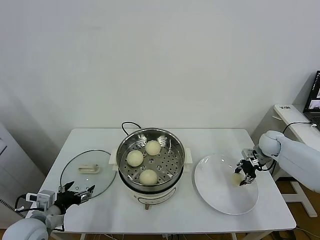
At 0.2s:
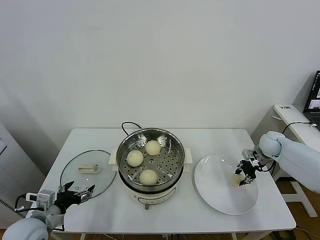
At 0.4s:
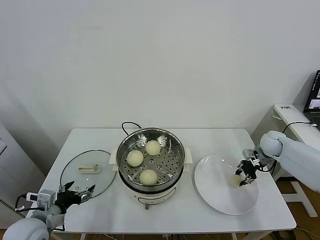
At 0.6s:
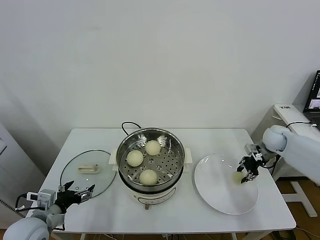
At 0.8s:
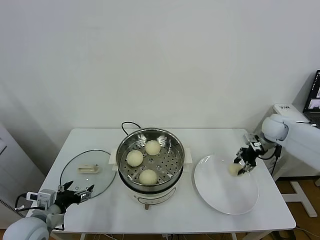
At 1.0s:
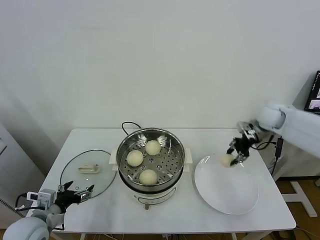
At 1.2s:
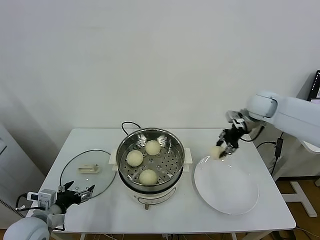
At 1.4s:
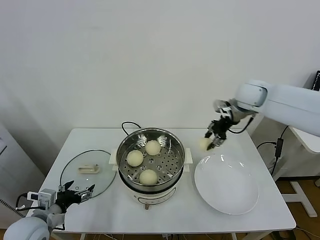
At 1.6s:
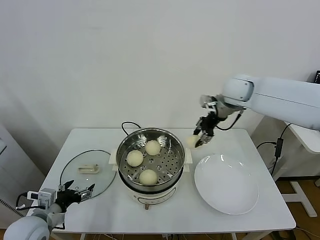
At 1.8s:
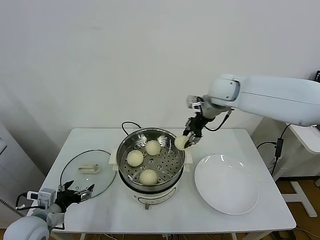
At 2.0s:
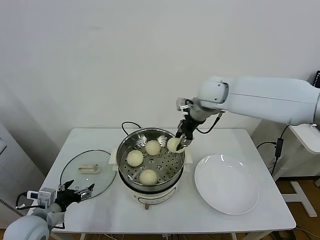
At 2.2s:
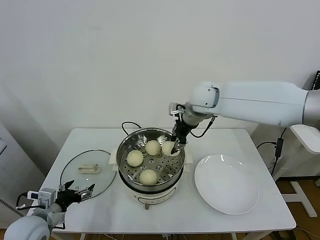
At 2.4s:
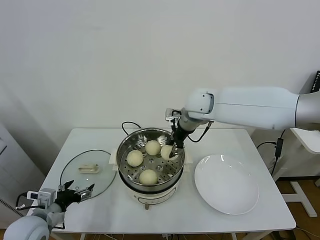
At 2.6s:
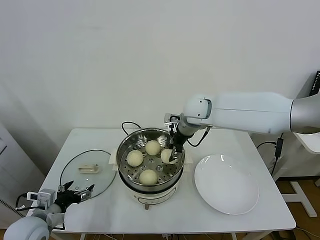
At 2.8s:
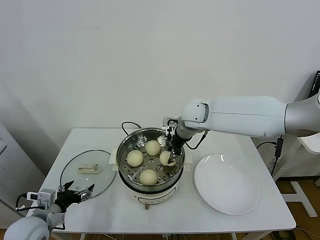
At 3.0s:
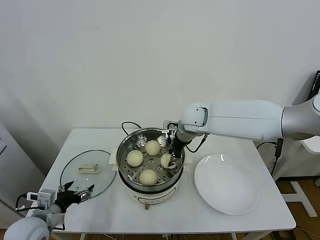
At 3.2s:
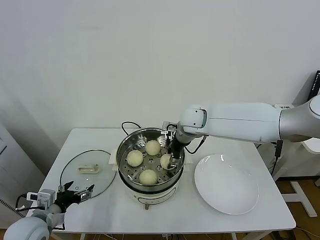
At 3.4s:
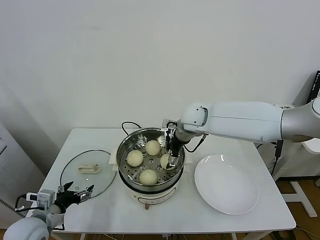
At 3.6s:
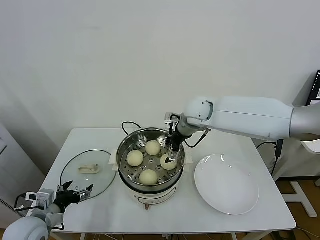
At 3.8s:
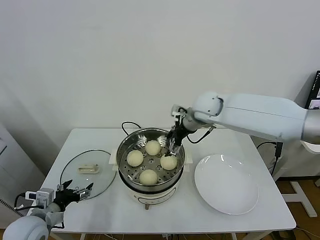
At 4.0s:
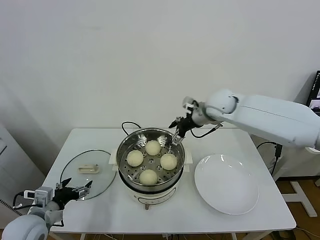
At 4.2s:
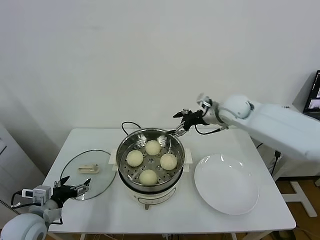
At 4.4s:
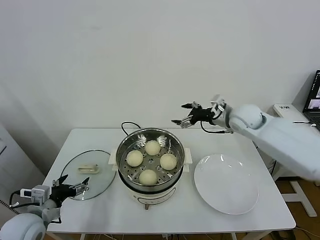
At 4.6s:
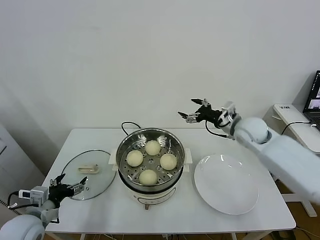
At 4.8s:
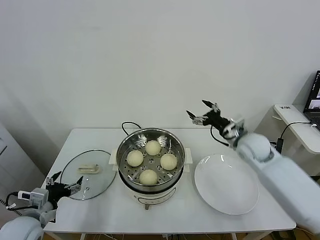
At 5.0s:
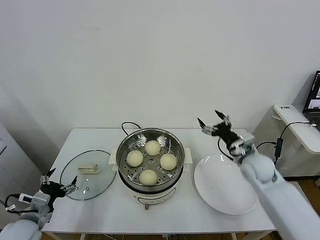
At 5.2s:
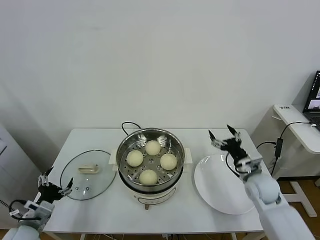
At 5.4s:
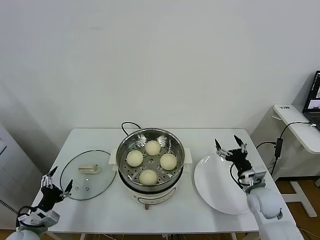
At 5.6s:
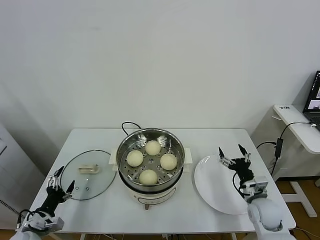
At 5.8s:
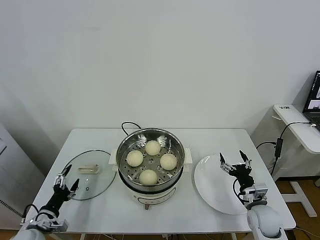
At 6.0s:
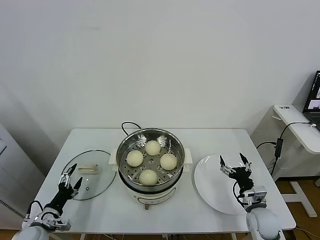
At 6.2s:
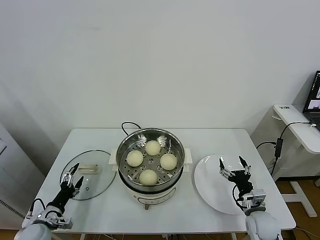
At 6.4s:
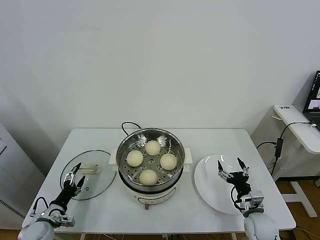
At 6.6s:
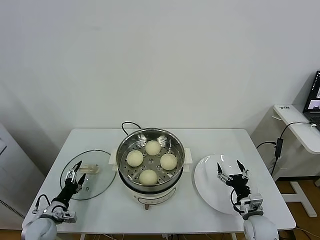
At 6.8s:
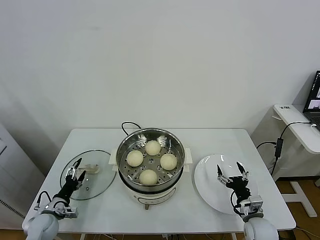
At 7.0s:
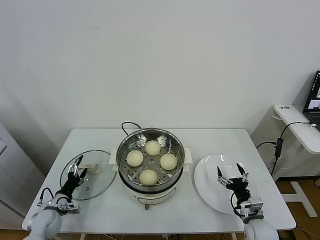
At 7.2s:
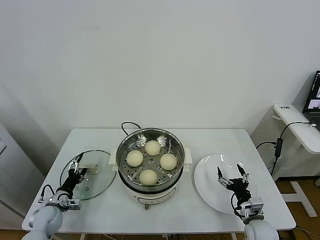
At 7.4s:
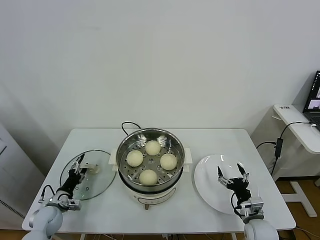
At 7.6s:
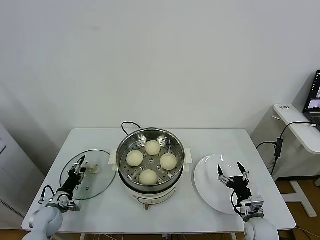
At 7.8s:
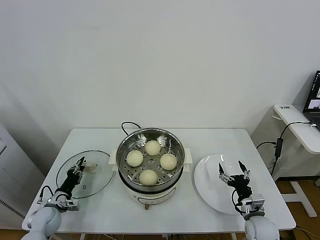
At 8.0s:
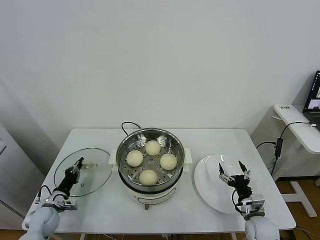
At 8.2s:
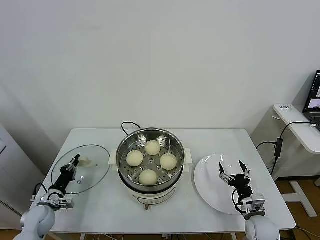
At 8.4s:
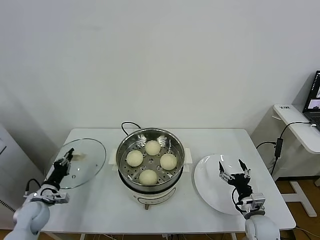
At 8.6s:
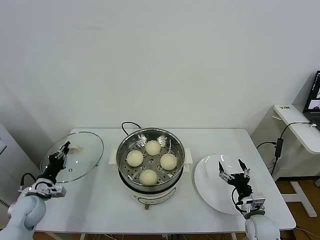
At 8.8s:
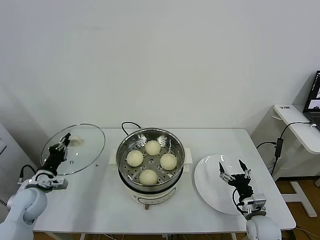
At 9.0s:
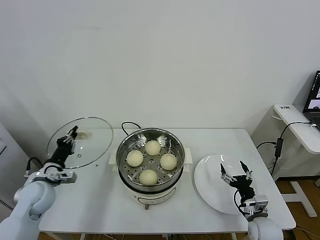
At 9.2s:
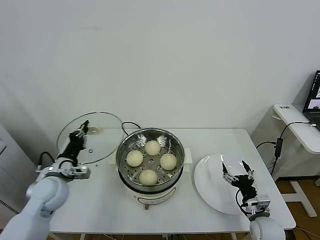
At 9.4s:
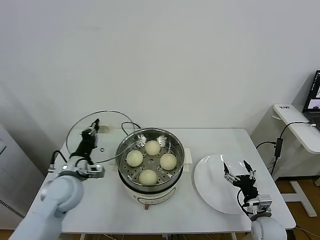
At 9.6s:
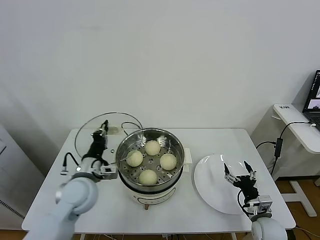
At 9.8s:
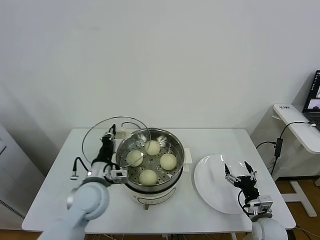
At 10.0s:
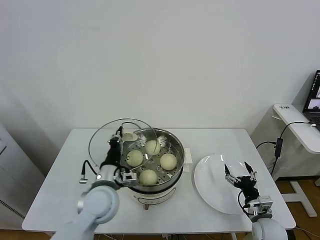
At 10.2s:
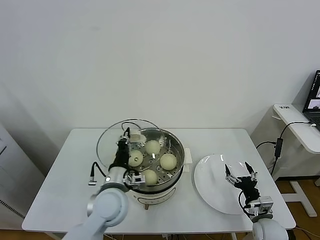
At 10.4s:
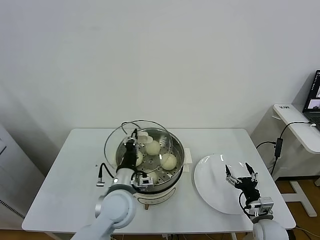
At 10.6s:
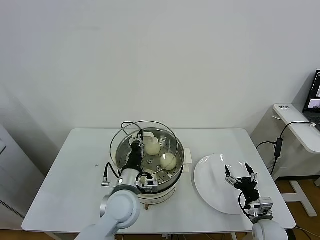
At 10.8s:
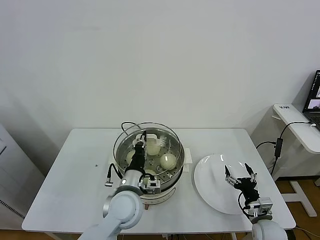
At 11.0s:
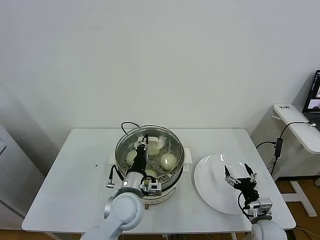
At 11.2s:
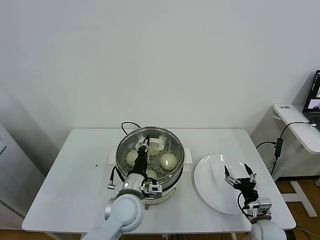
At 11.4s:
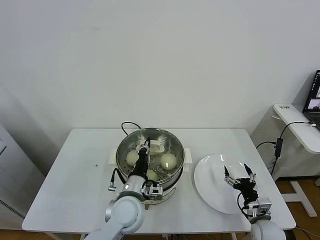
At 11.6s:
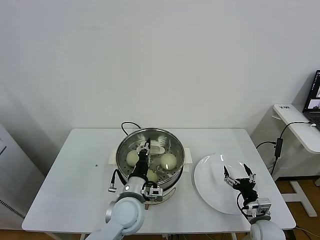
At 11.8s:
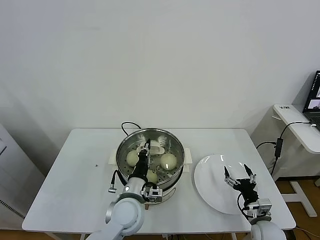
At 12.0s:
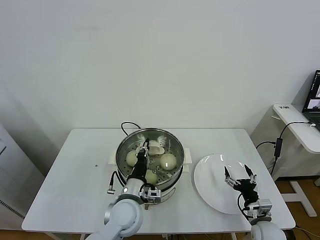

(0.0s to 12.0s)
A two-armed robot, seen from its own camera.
Task of the whole recording: take steamed baozi put them in steamer.
Step, 0.2s - 3.6s: Place the baozi on the steamer with right gripper.
Step, 3.8s - 8.0s: Grasp the pot lid with left gripper.
0.0s - 1.6s: The right gripper goes roughly 30 cm upward and to the left.
1.6s - 3.0s: The right gripper shifts roughly 15 cm to the left and downward.
3.0s - 4.4s: The right gripper travels to the right by approximately 15 cm, and opens its fingers.
4.4s - 6.0s: The right gripper travels downward and backward by some 35 cm. The left gripper goes approximately 15 cm downward.
6.0s - 7.6s: The left gripper goes some 10 cm forward, and closes.
7.6s - 9.0s: The left gripper moves upward, about 15 cm, and closes up.
9.0s - 10.4s: The left gripper travels to the right by approximately 25 cm.
10.4s - 12.0s: The left gripper moves roughly 5 cm.

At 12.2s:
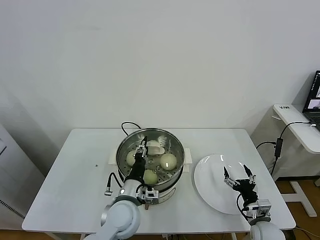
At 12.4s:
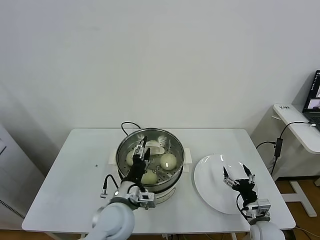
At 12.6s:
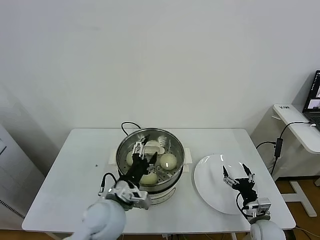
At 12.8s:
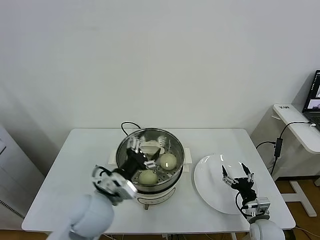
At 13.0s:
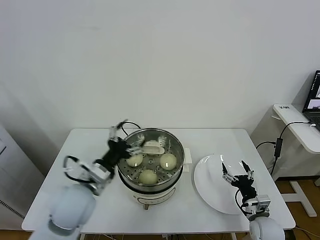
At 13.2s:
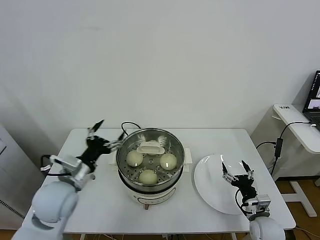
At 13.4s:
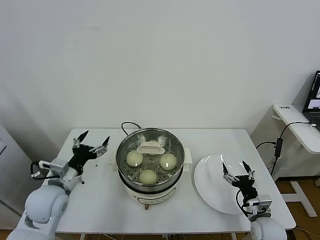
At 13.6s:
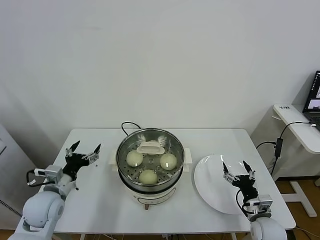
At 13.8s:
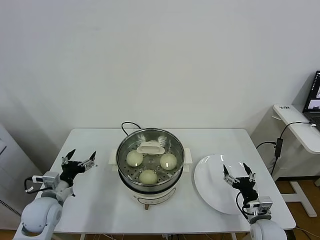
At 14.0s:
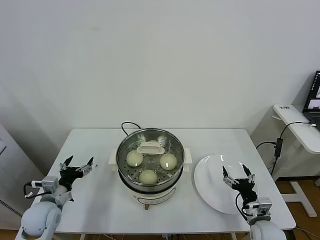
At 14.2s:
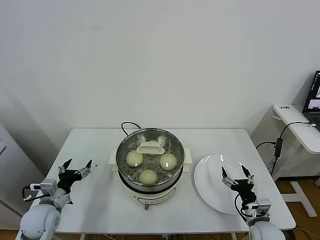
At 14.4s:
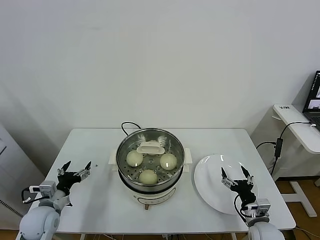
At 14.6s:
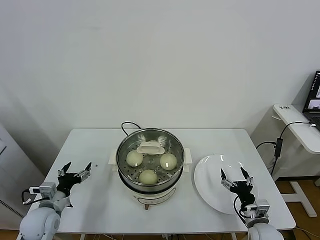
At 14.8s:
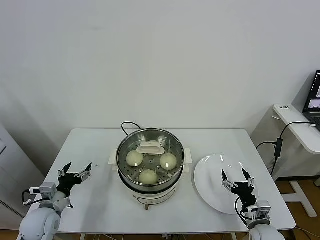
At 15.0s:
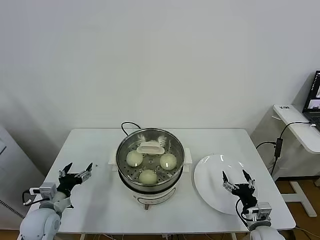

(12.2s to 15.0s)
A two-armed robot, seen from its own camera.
Task of the whole recording: take steamed baozi put them in steamer.
12.2s - 13.6s: The left gripper travels to the left by some 25 cm, and opens.
13.6s - 15.0s: The left gripper shifts some 5 cm downward.

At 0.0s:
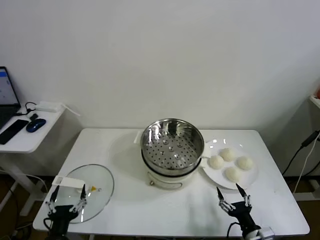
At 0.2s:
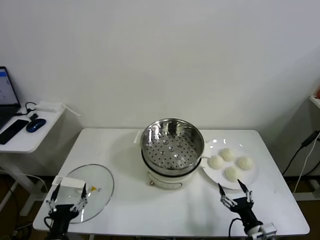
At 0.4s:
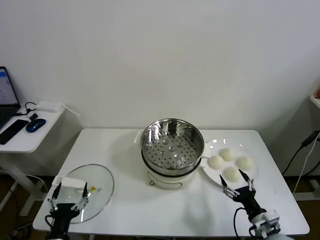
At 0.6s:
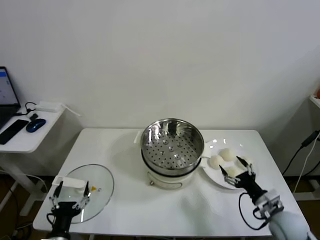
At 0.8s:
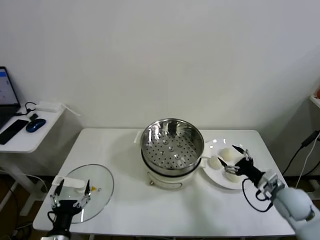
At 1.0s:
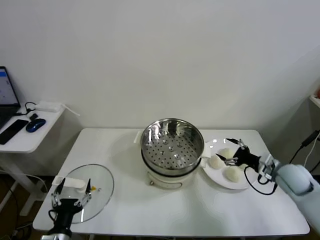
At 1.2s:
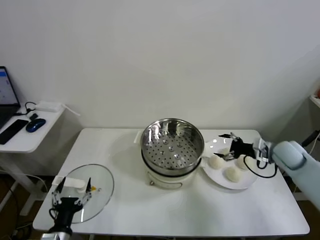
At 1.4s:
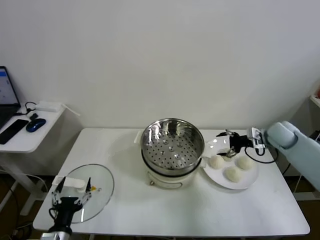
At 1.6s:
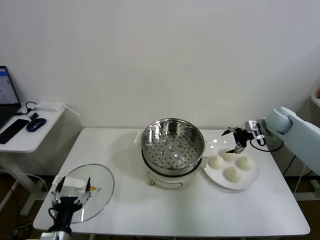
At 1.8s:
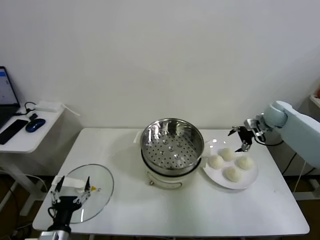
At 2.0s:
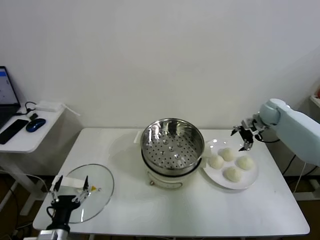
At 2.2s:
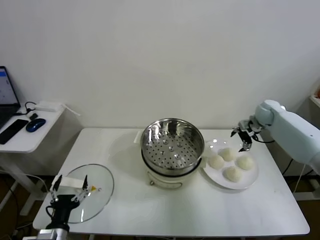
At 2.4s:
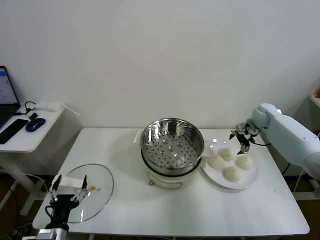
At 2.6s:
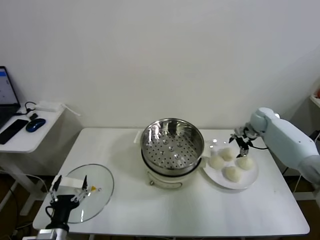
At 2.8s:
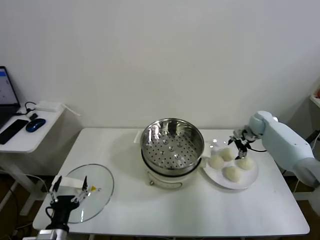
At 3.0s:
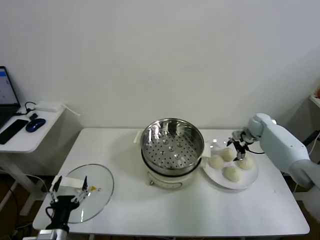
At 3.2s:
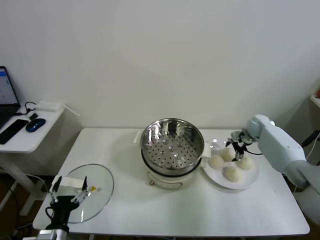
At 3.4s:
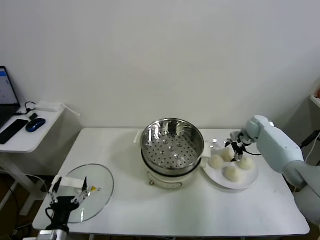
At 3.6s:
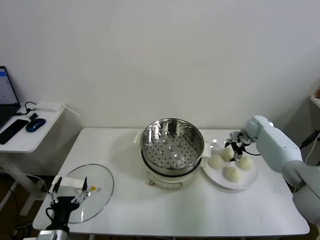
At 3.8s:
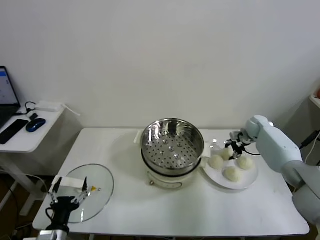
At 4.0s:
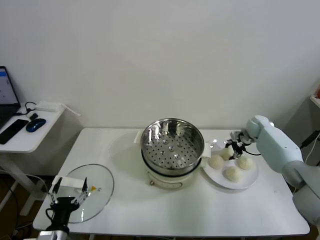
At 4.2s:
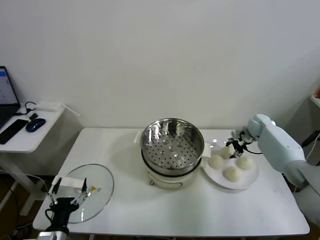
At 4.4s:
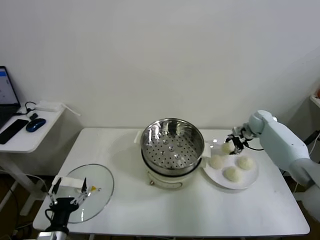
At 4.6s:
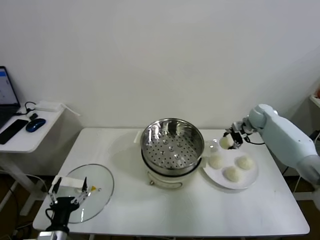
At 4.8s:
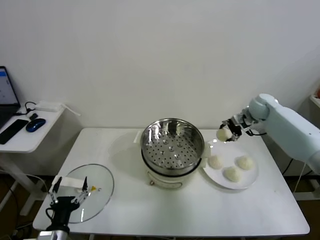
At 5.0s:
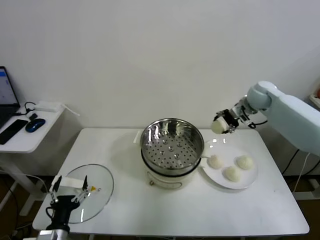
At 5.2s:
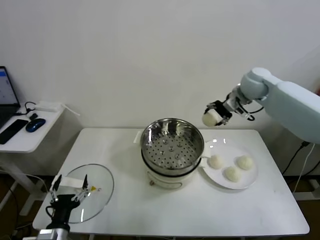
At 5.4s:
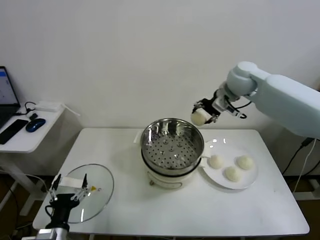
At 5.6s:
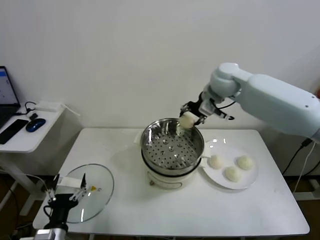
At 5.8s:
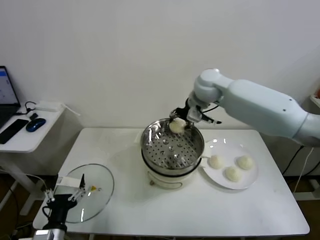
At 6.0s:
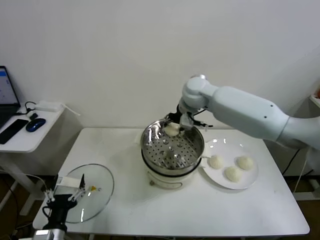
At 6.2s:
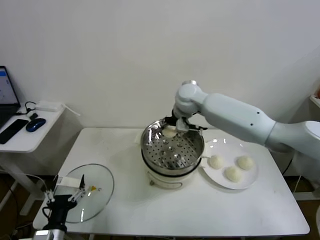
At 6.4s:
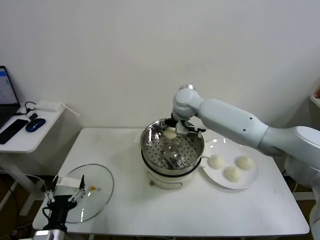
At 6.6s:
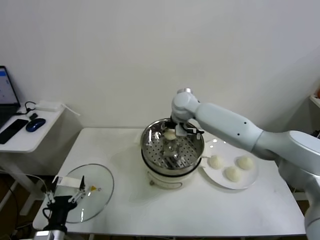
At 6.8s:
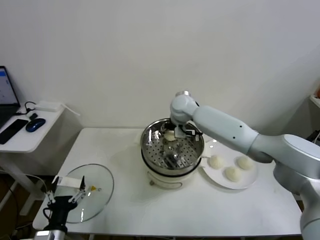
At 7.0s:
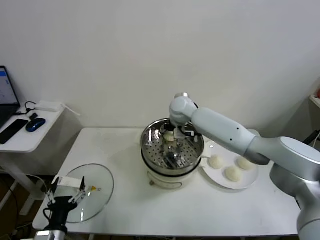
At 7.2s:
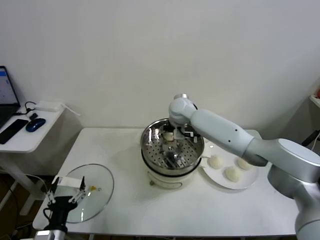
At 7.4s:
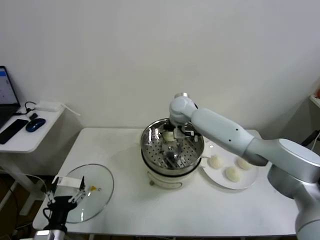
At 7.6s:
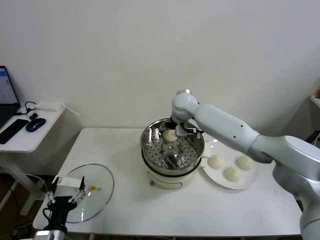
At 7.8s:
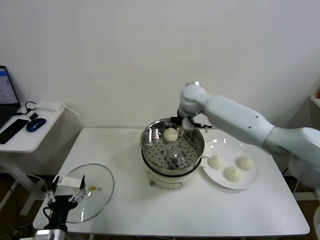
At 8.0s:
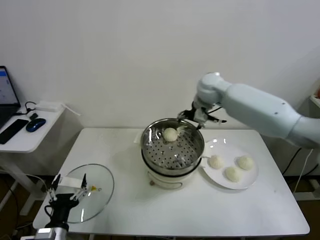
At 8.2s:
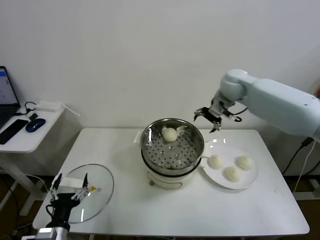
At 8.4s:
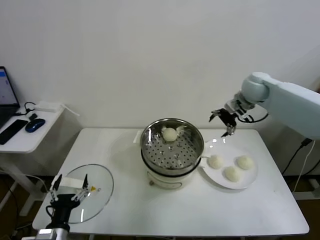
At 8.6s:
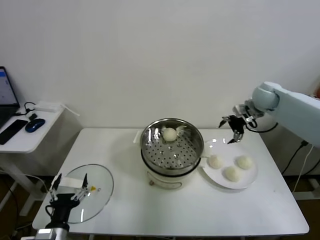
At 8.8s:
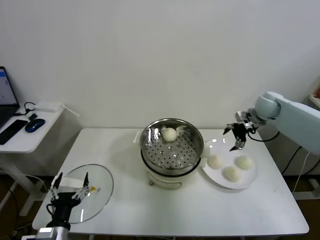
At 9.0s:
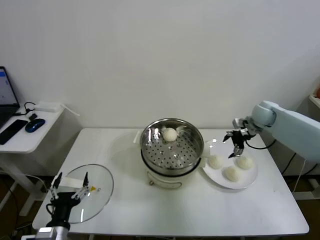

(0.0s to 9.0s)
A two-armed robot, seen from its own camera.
Task of the whole recording: take steamed baozi put them in steamer.
Step, 0.0s - 4.0s: Grasp the baozi in the plate with right gripper.
Step, 4.2s - 7.6s: Place the baozi on the steamer with right gripper.
1.6s - 3.0s: The right gripper heads downward, covering roughly 10 cm.
3.0s - 4.4s: The right gripper closes.
4.4s - 6.0s: The right gripper goes some 35 cm to the left and upward.
6.0s - 7.6s: The right gripper opens.
7.6s - 9.0s: The right gripper moves to the right, approximately 30 cm.
